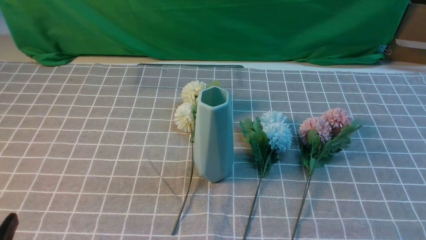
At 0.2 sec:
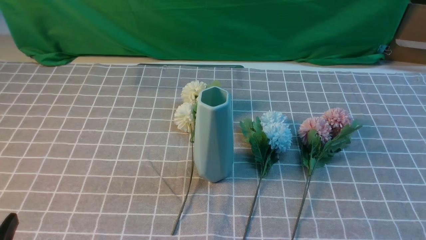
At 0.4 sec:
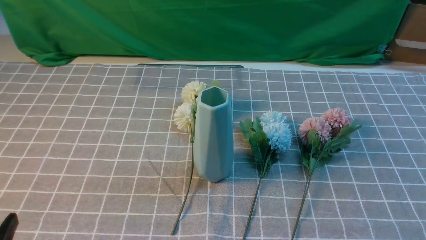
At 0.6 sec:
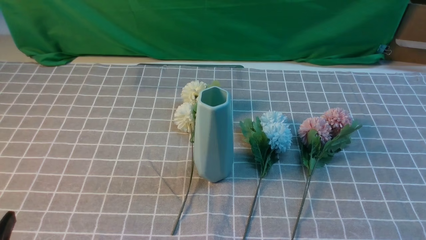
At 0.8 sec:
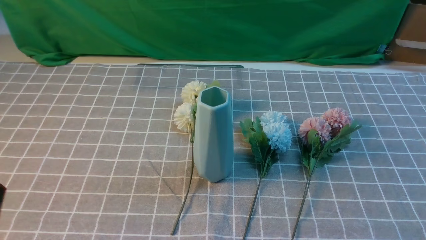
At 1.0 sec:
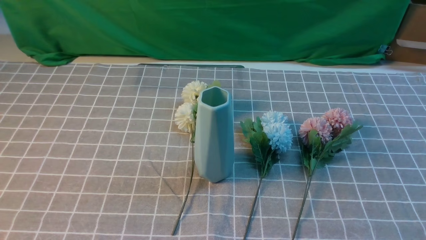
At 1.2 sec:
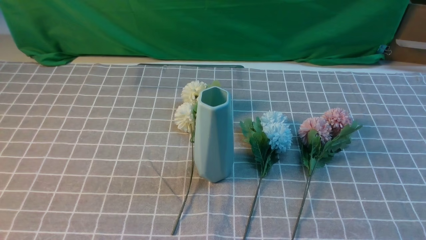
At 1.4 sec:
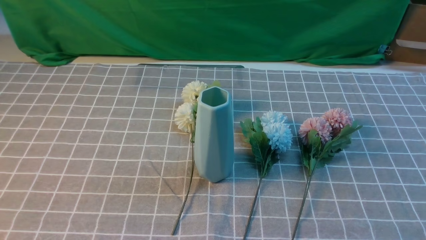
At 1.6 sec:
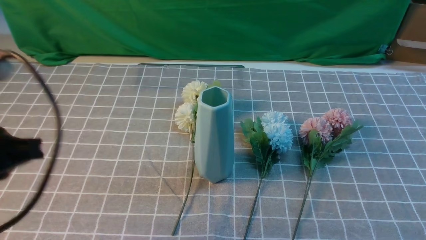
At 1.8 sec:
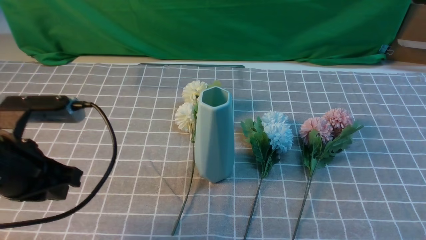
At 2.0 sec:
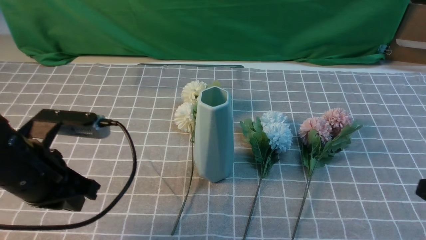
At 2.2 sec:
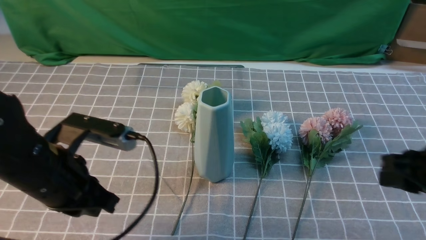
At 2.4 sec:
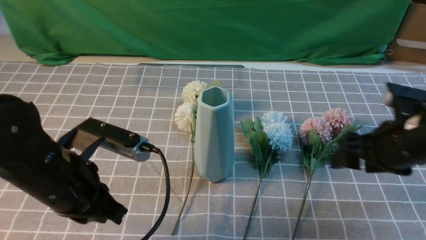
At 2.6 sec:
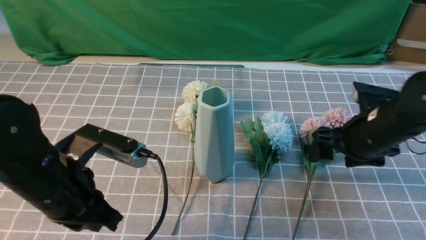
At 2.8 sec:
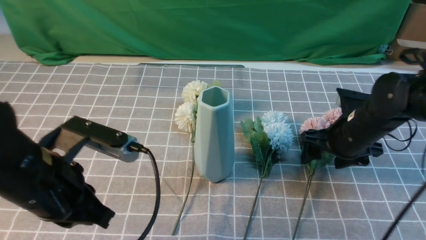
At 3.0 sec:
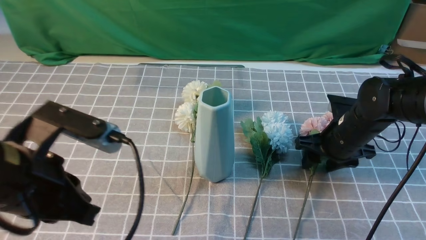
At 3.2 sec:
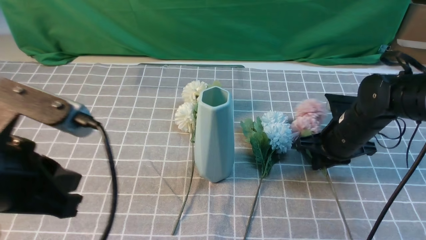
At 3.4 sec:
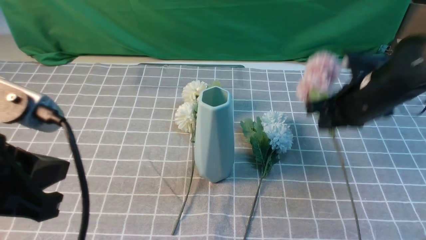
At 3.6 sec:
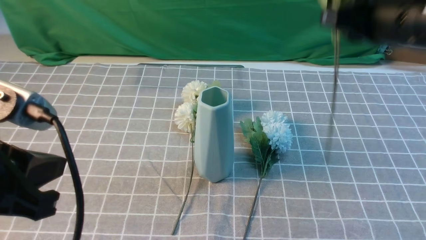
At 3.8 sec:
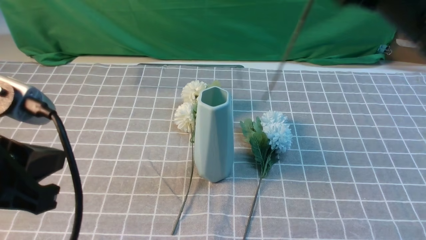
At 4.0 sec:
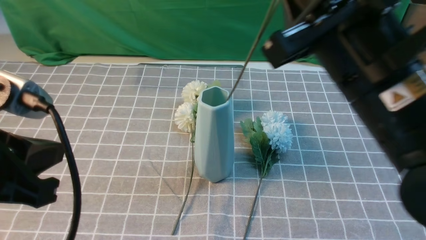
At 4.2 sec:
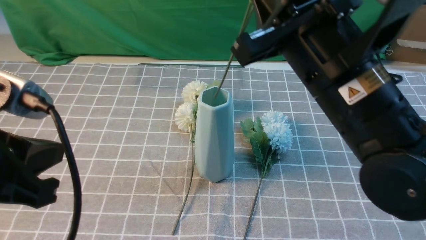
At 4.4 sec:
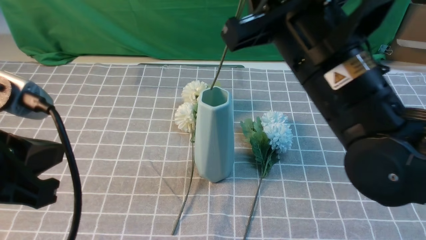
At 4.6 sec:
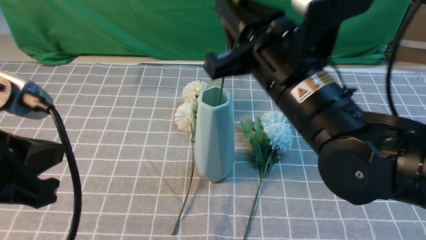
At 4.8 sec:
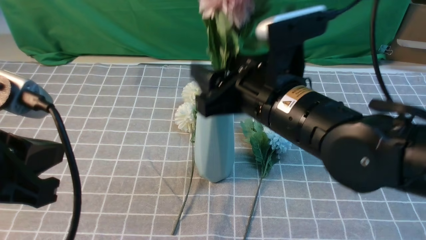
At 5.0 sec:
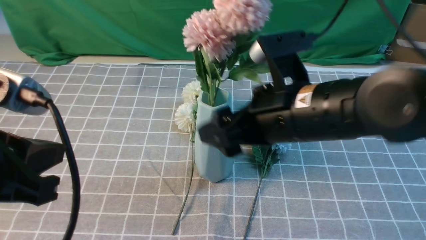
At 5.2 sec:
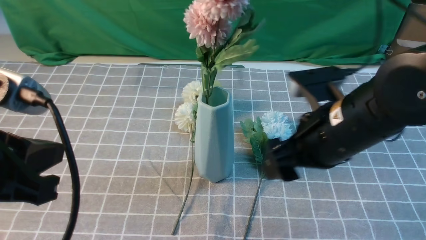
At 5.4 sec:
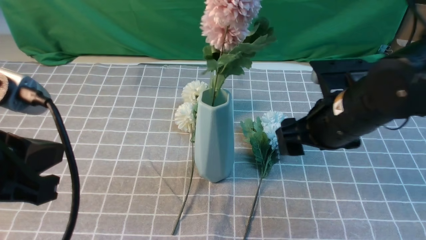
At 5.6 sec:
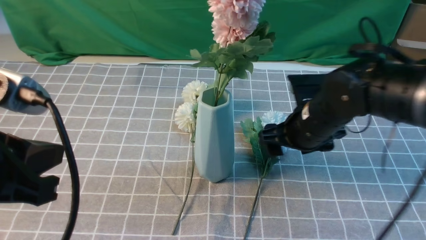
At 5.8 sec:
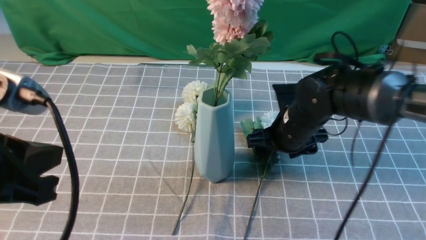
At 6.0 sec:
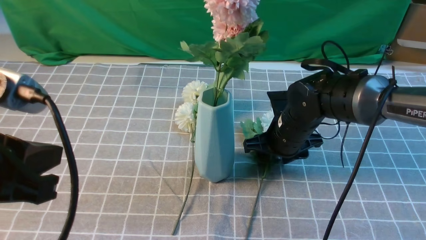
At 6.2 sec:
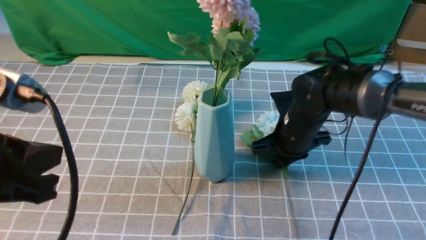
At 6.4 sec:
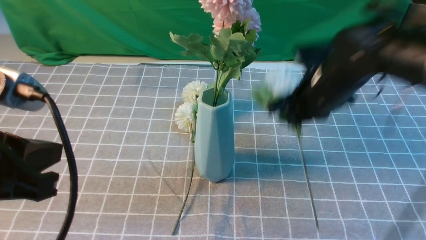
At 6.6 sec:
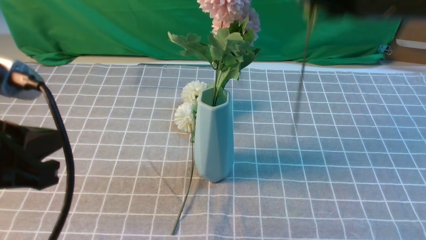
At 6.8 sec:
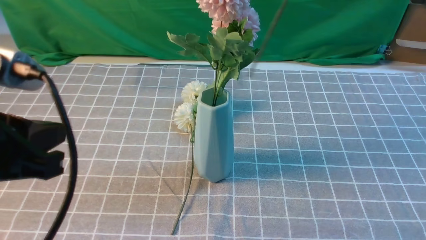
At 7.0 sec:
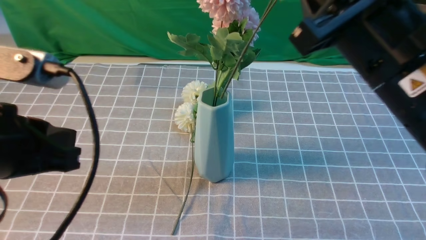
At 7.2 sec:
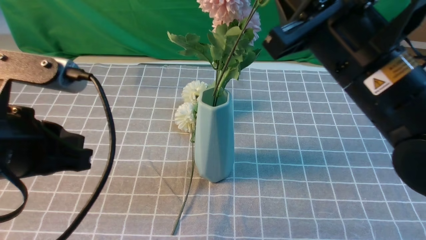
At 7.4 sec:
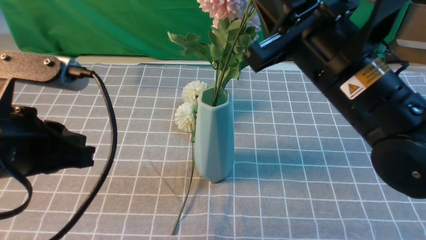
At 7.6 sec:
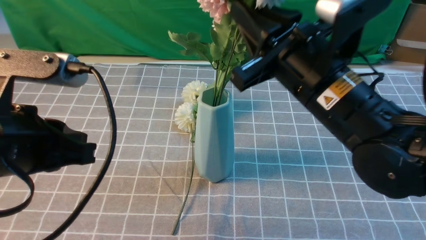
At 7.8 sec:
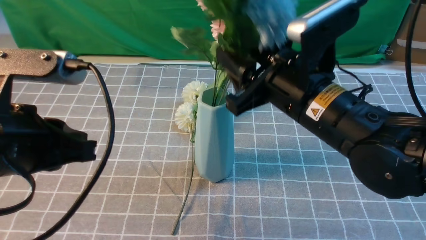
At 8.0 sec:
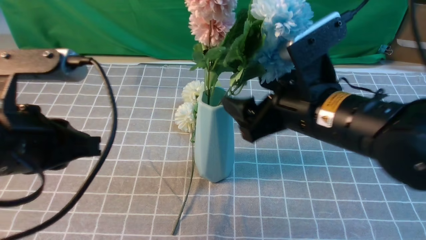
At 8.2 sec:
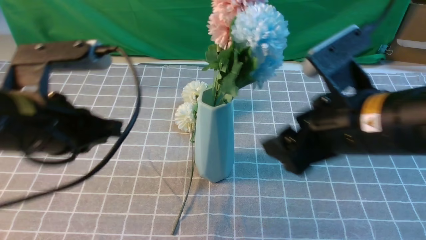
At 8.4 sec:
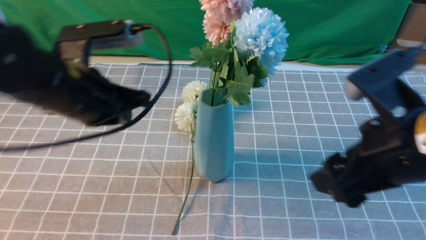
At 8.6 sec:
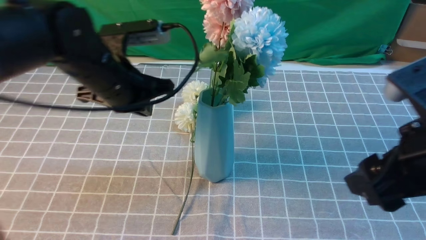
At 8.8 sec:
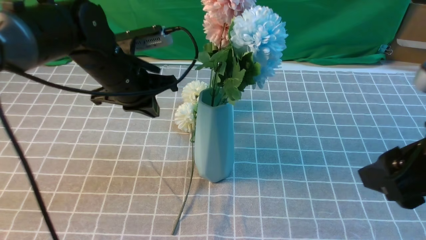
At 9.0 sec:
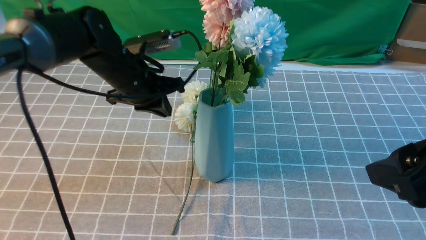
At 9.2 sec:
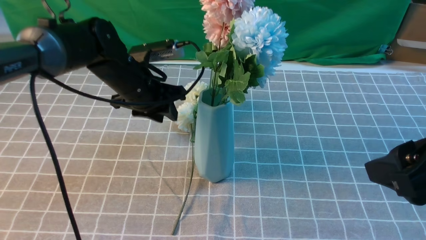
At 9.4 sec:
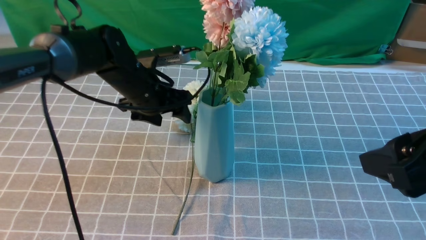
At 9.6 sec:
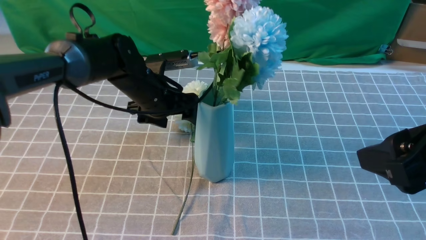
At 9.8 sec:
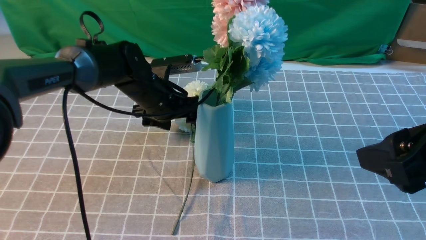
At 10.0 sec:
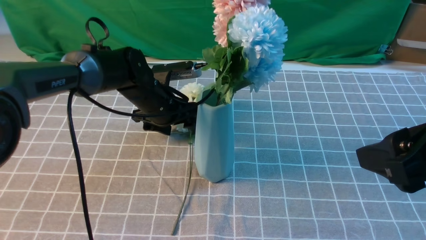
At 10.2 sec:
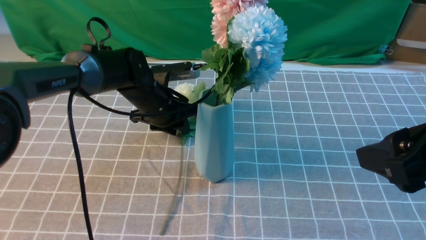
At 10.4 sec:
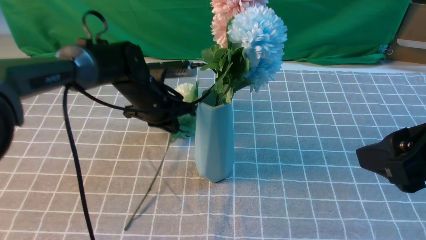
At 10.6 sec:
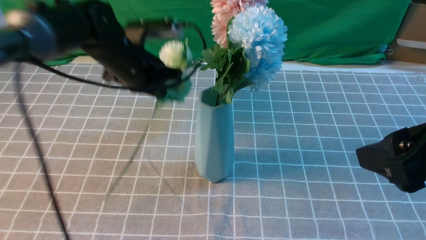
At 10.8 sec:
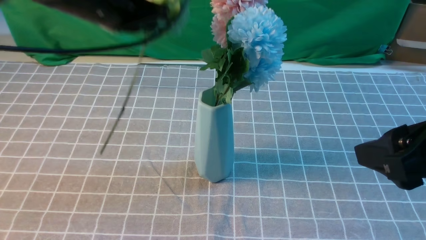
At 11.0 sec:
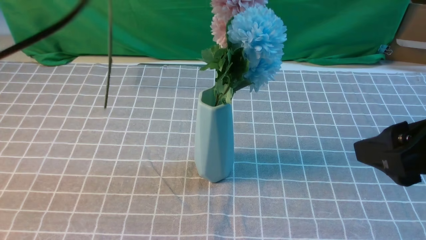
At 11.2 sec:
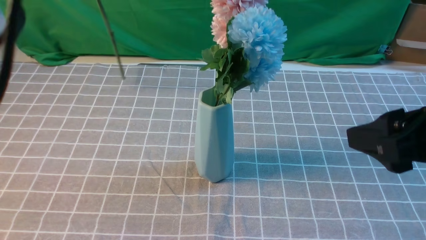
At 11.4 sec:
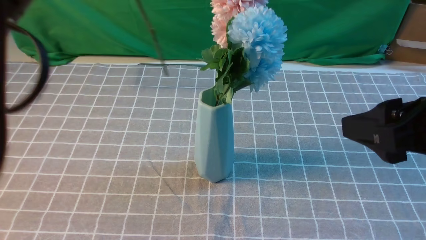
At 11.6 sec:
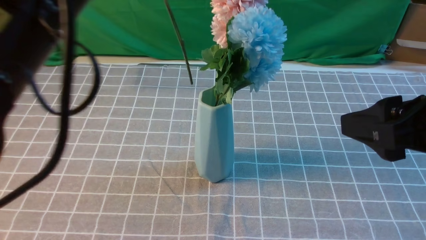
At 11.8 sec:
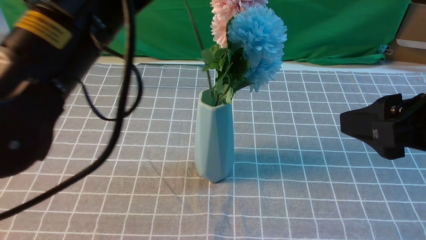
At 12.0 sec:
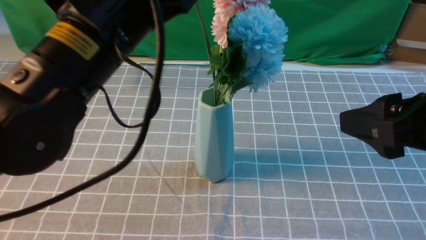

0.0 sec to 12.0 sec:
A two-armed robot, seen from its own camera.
Task of the whole recording: insert the flowers into the vase on the table with the grey tablecloth.
Step, 0.0 sec to 3.2 sec: use the right arm to grab a bunch of fresh flowers.
Step, 3.4 sec to 4.8 sec: use the right arm to insert the flowers into the vase.
Step, 5.2 sec to 6.2 sec: use the right arm to grab a bunch of fresh flowers.
Step, 6.4 sec to 8.0 sec: use the right arm to insert the flowers into the vase.
Step, 8.2 sec to 10.4 sec: use the left arm to grab a bunch of fresh flowers.
0.0 sec to 1.6 sec: The left gripper goes roughly 15 cm upward and forward, and closes up.
1.6 sec to 3.0 sec: The left gripper travels to the right by about 5 cm, while the right gripper travels forward by roughly 30 cm, and opens, then closes once more.
3.0 sec to 4.4 sec: The right gripper goes approximately 25 cm upward, to the left and backward, and closes its fingers. Meanwhile the left gripper is displaced upward by approximately 5 cm.
4.4 sec to 6.0 sec: The right gripper travels downward and forward by roughly 25 cm, and opens.
6.0 sec to 7.6 sec: The right gripper heads upward and backward, covering about 20 cm, while the left gripper changes place by approximately 5 cm.
7.6 sec to 9.0 sec: The left gripper travels forward and downward by approximately 25 cm. Meanwhile the right gripper heads backward and to the right, covering about 15 cm, and opens its fingers.
9.0 sec to 10.4 sec: The left gripper opens, then closes again.
10.4 sec to 12.0 sec: The left gripper goes about 25 cm backward and upward.

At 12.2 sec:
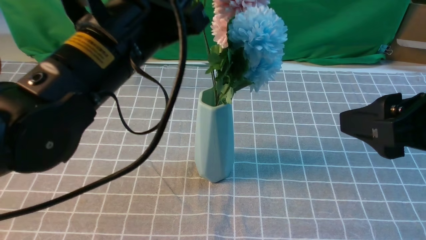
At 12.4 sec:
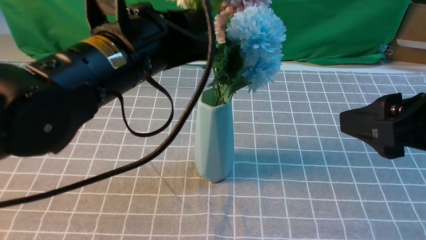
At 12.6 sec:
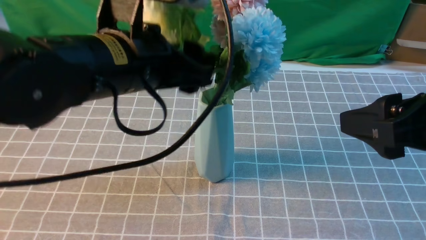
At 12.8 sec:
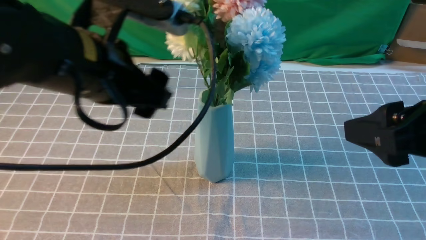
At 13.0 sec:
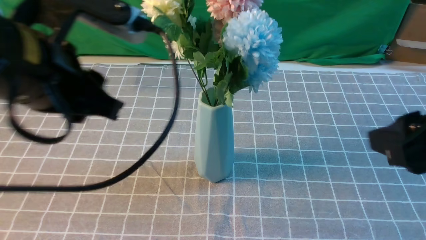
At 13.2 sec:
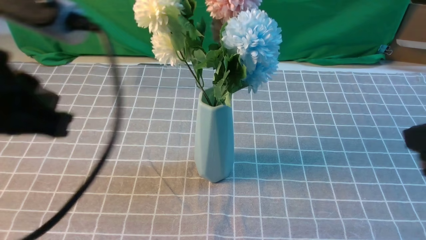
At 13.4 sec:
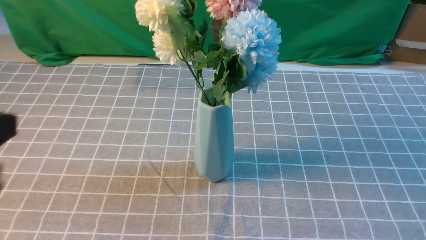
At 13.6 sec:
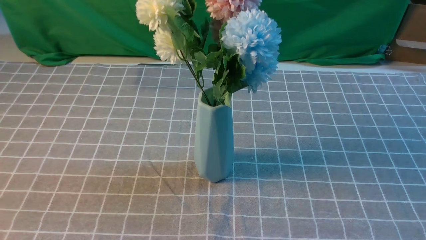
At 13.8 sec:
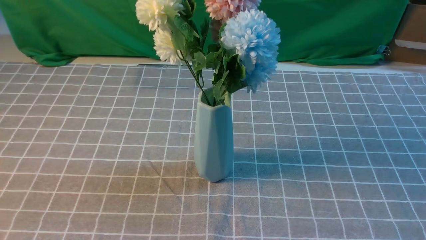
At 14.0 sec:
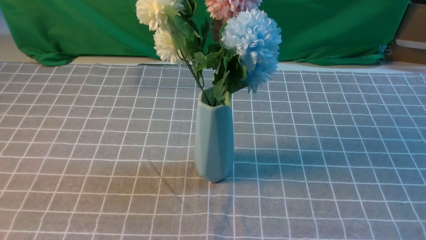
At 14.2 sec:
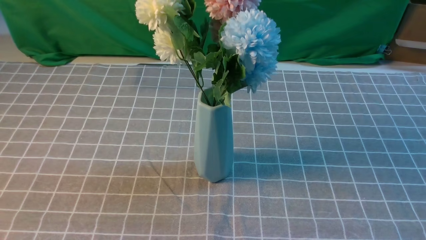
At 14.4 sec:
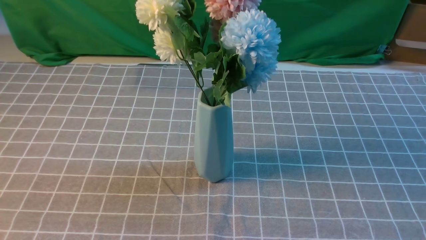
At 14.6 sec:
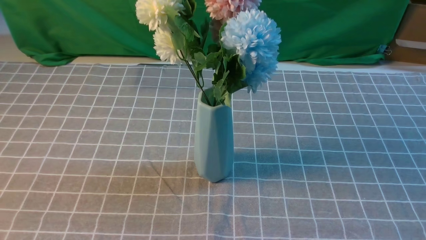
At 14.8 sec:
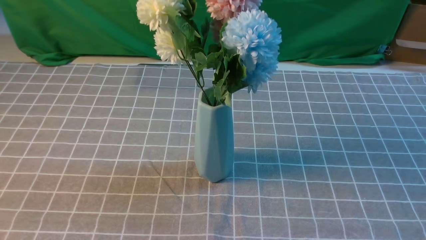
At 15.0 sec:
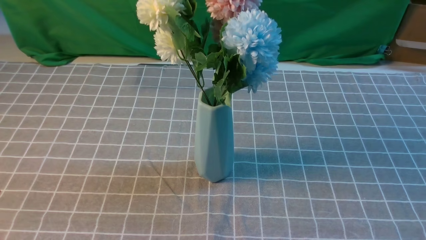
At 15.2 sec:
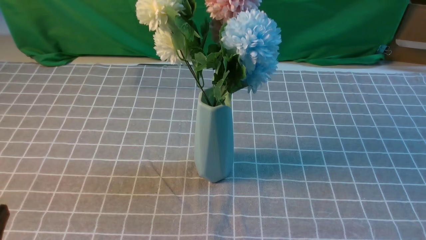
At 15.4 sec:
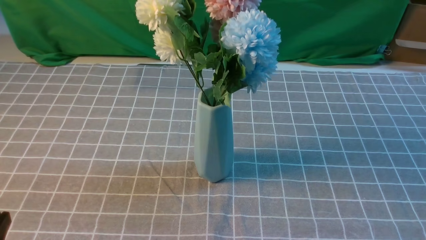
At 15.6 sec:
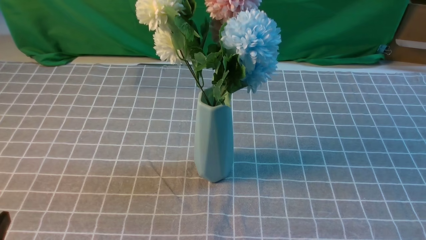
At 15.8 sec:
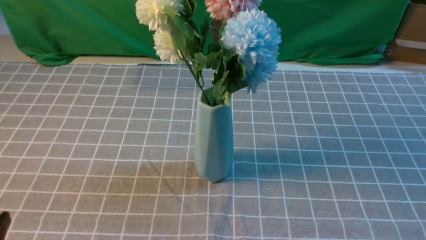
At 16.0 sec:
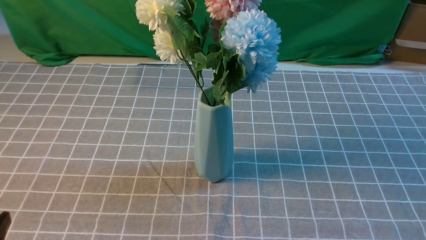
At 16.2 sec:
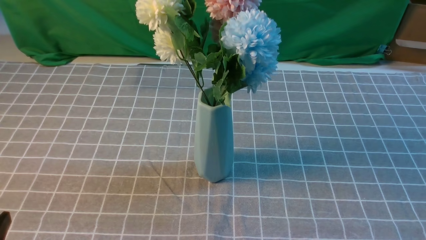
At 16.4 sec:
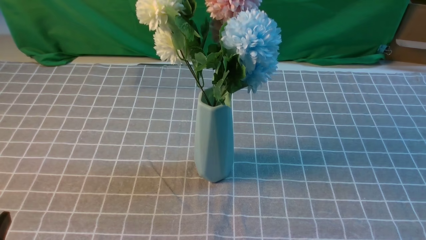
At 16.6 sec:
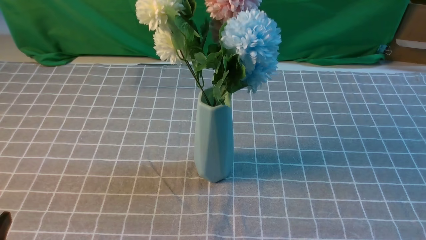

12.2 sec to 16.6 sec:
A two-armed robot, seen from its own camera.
Task of the whole recording: insert the flowers into the vase on the table with the grey tablecloth.
12.2 sec to 13.6 sec: The left gripper heads backward and to the left, covering approximately 25 cm, and opens, then closes again, while the right gripper moves backward and to the right, approximately 15 cm, and closes its fingers.
